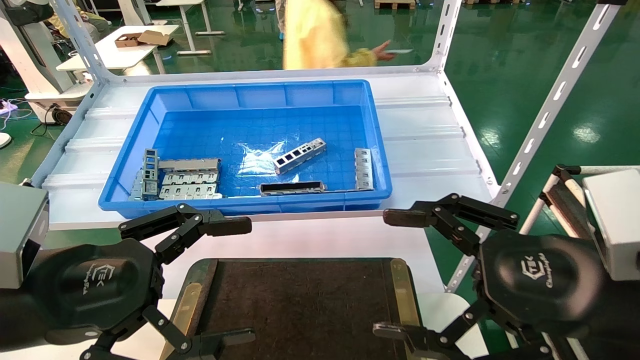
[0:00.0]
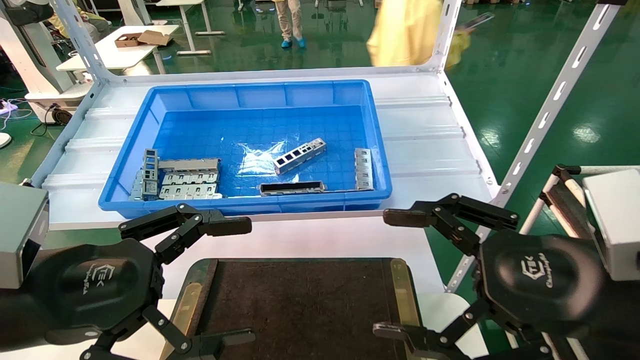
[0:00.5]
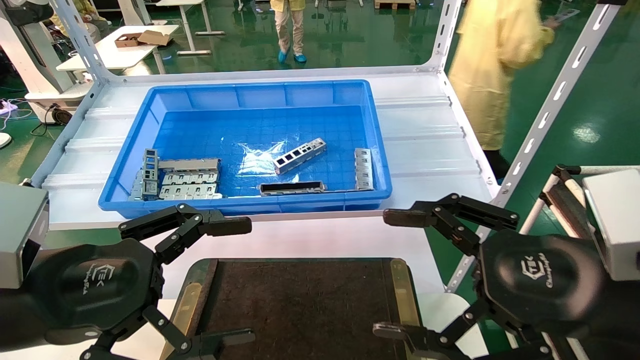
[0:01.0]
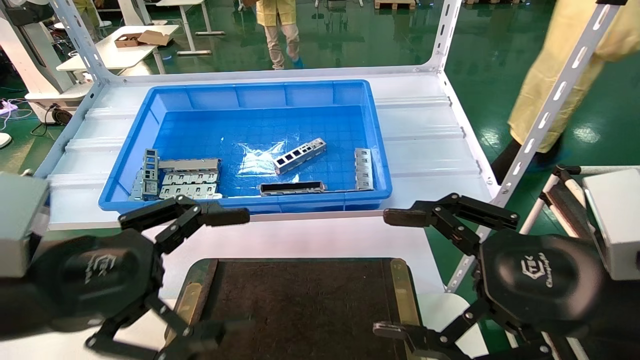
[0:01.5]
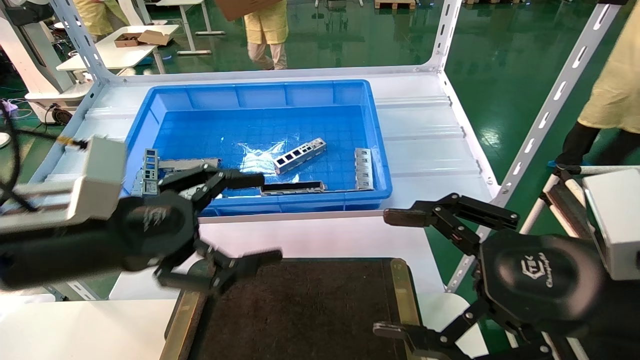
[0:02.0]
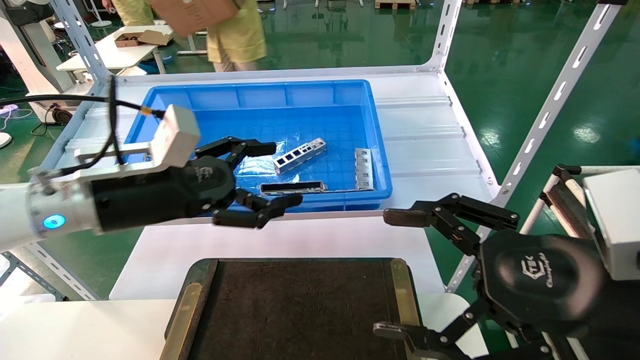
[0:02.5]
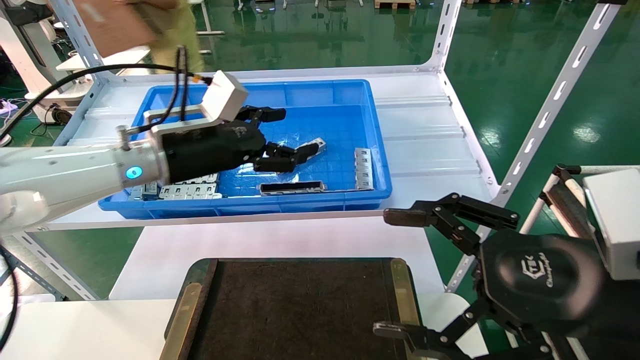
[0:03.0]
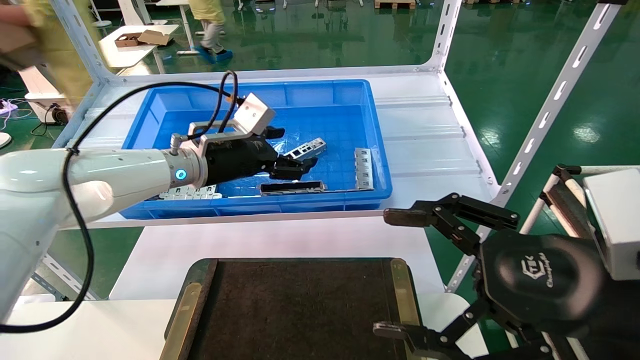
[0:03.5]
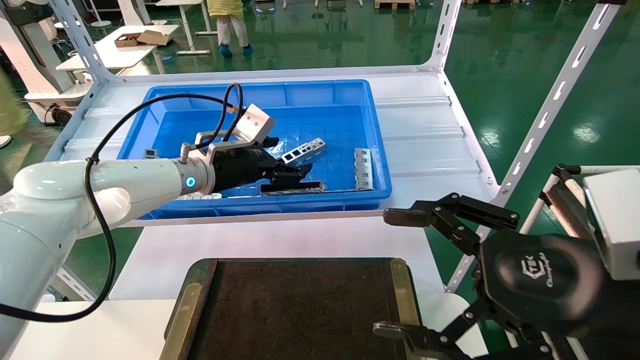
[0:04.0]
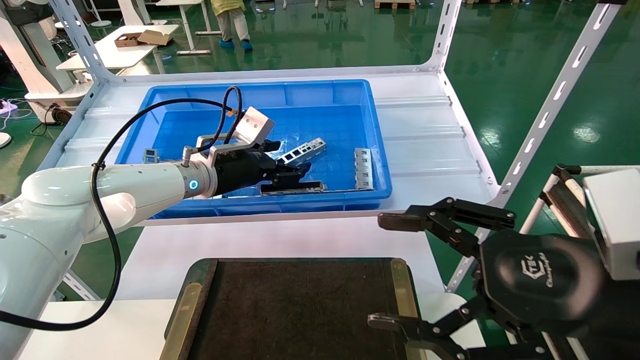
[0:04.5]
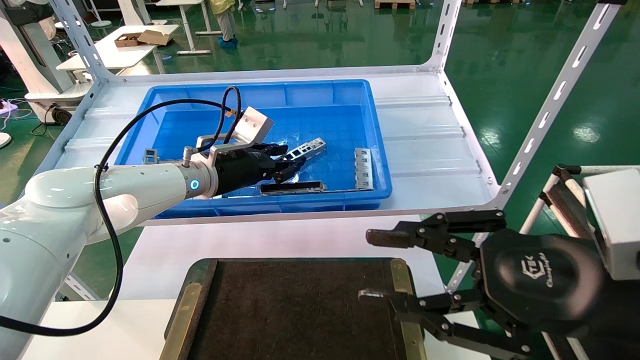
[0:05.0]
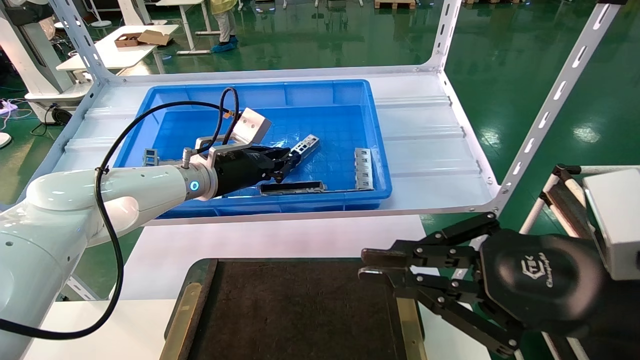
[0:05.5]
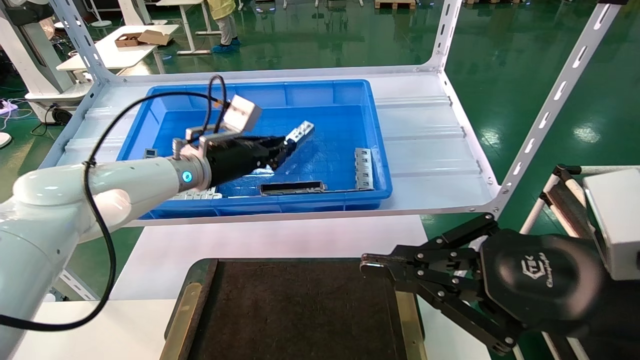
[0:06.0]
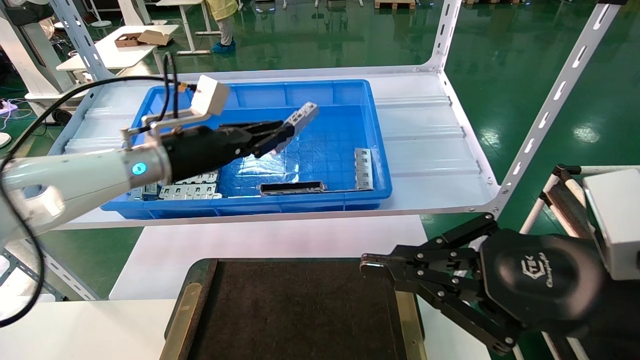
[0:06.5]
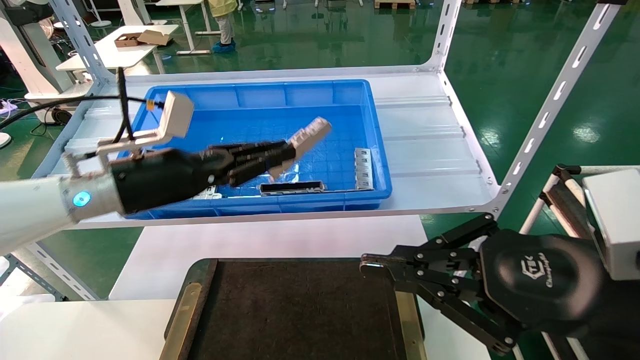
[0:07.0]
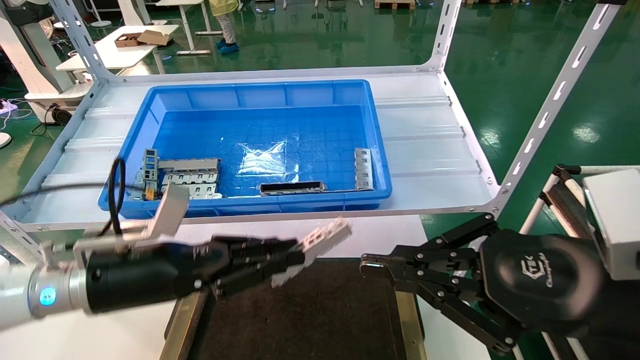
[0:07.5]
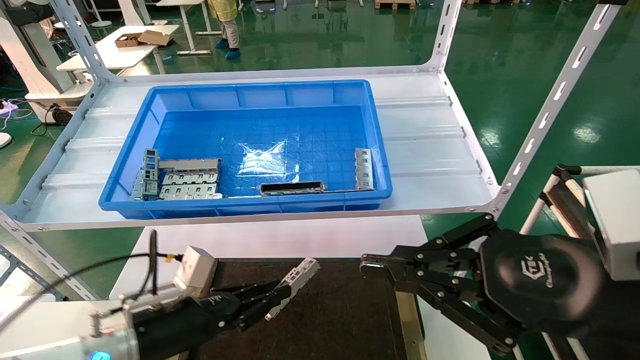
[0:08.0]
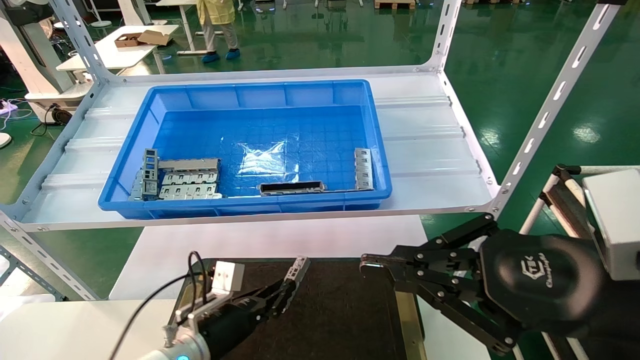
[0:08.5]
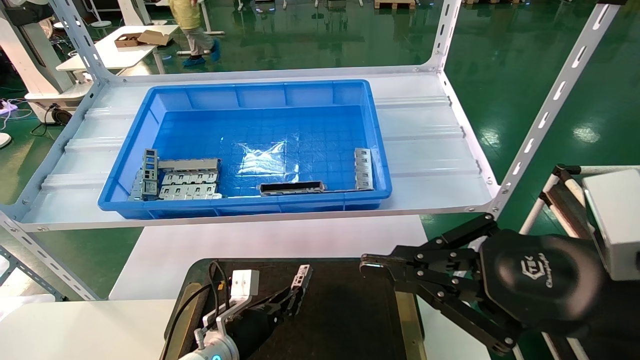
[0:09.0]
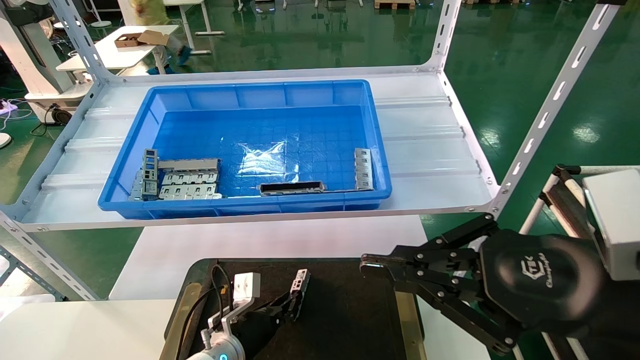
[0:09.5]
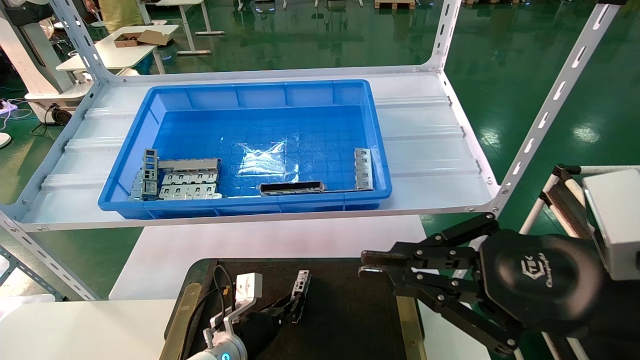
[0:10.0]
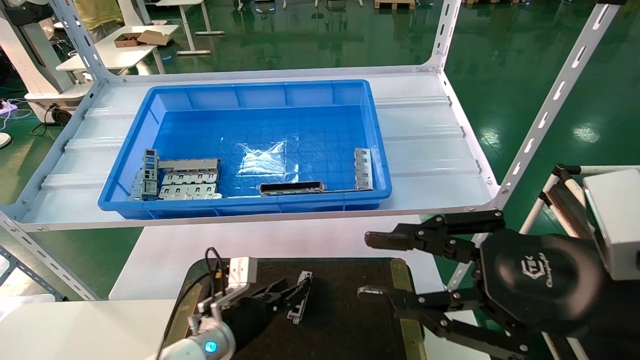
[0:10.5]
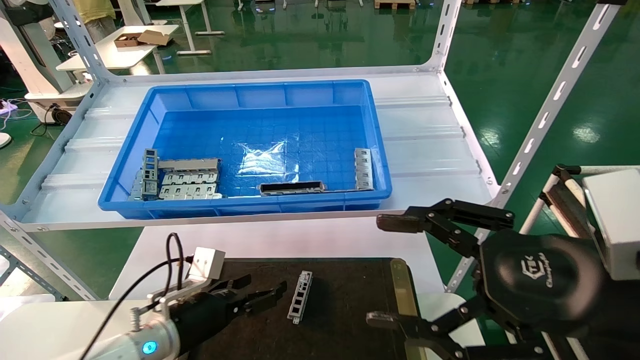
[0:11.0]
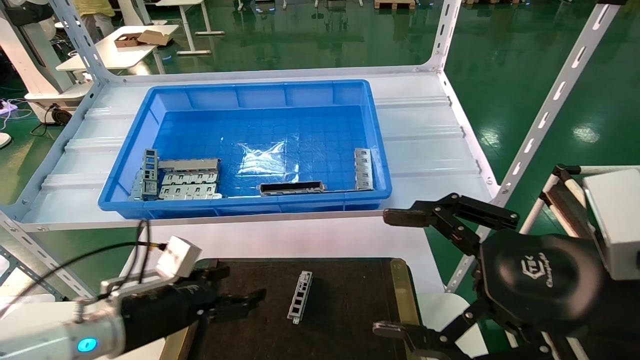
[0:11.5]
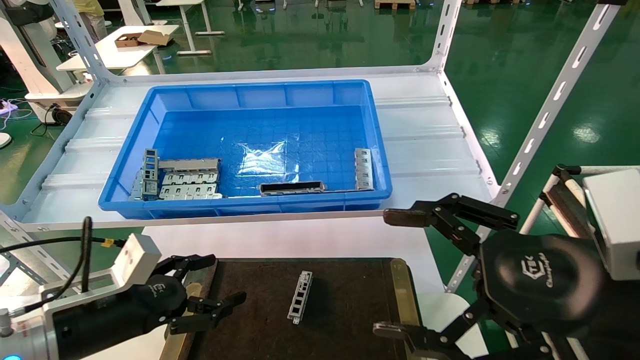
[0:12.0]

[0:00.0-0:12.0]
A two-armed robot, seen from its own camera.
Task of the whole recording: Grasp the part with one hand and place it on the black container.
Step, 0:02.0 to 0:06.0: Pick up the front USB bracket from the feeding area.
Step, 0:06.5 to 0:10.0: Place the front USB bracket into the box.
0:00.0 to 0:02.0: The left gripper heads forward, covering roughly 5 cm.
0:02.0 to 0:04.0: The left gripper shifts about 25 cm forward.
0:04.0 to 0:06.0: The left gripper closes its fingers, while the right gripper closes up.
0:06.0 to 0:08.0: The left gripper is displaced downward and backward by some 25 cm.
0:08.0 to 0:10.0: The left gripper shifts roughly 15 cm downward, to the right and forward.
0:10.0 to 0:12.0: The right gripper opens. The left gripper is displaced upward, to the left and backward by about 25 cm, and opens up.
